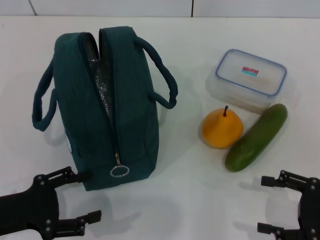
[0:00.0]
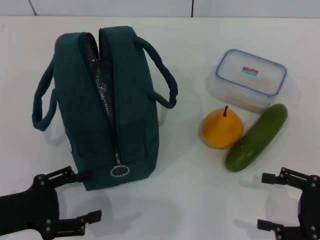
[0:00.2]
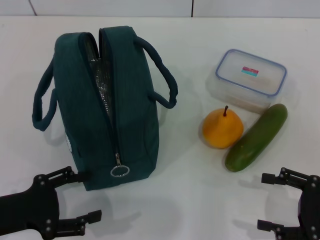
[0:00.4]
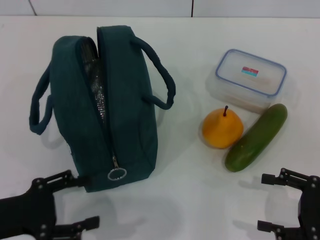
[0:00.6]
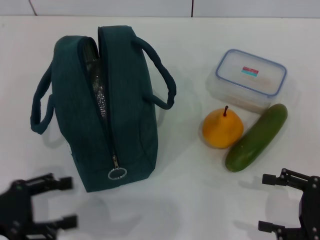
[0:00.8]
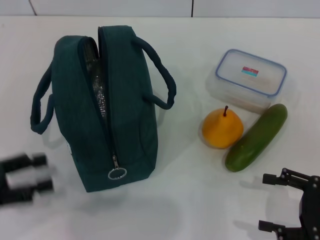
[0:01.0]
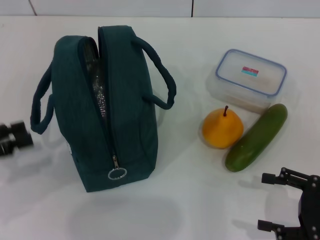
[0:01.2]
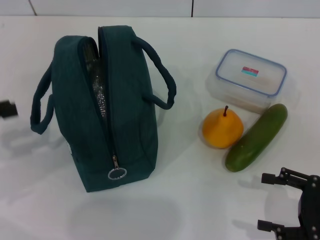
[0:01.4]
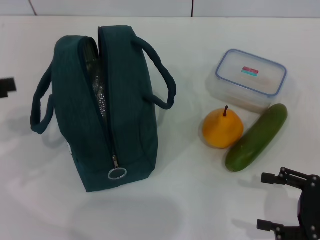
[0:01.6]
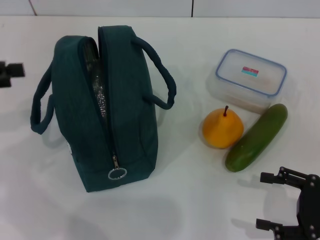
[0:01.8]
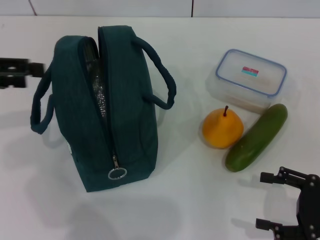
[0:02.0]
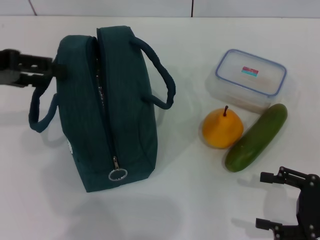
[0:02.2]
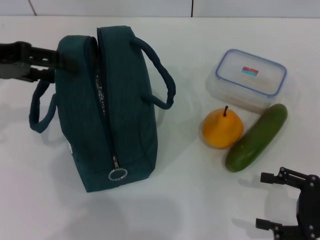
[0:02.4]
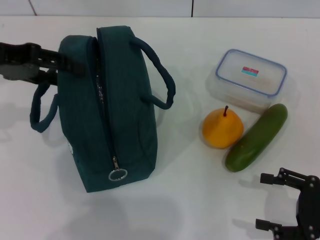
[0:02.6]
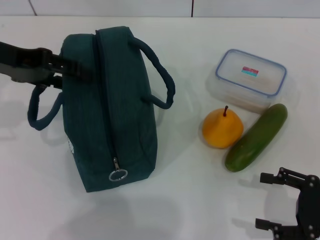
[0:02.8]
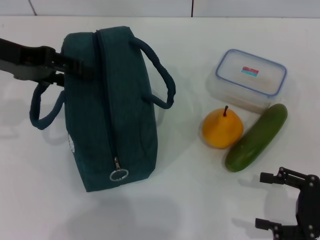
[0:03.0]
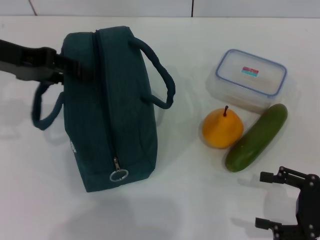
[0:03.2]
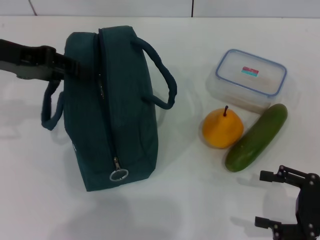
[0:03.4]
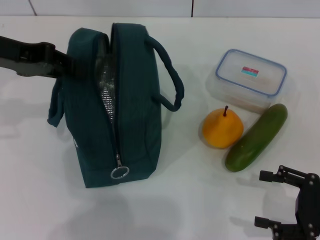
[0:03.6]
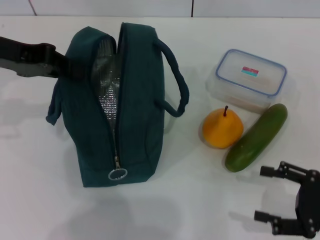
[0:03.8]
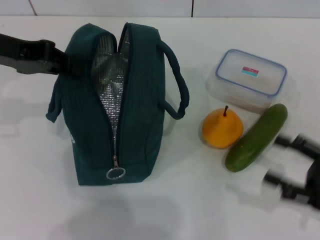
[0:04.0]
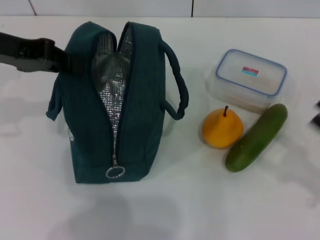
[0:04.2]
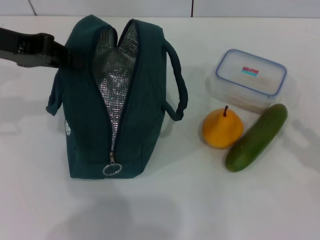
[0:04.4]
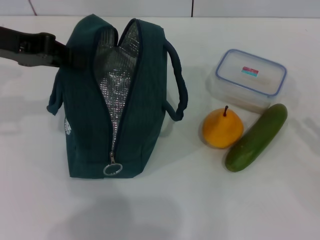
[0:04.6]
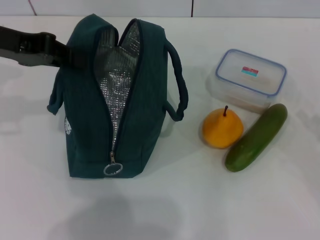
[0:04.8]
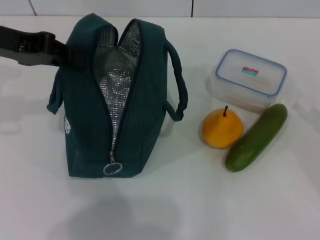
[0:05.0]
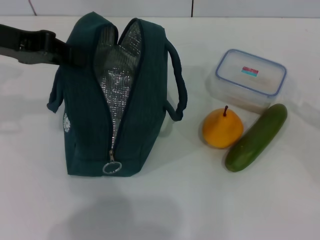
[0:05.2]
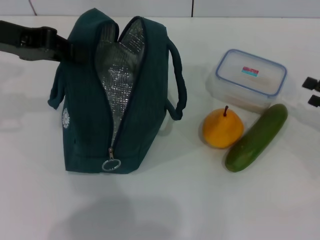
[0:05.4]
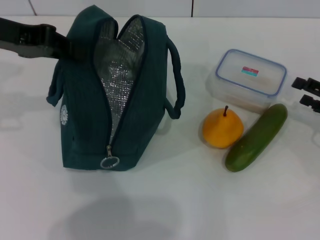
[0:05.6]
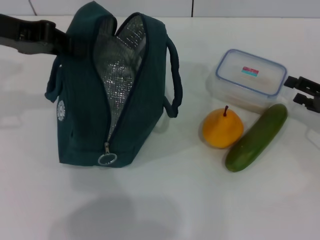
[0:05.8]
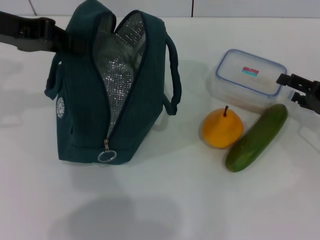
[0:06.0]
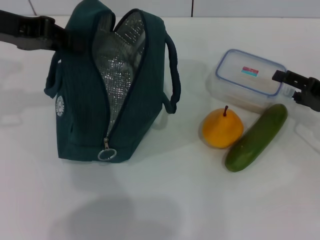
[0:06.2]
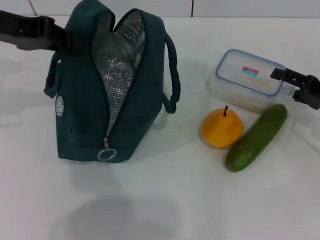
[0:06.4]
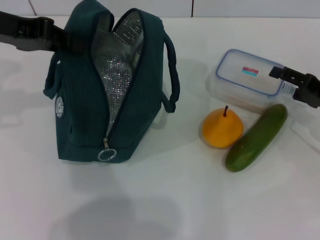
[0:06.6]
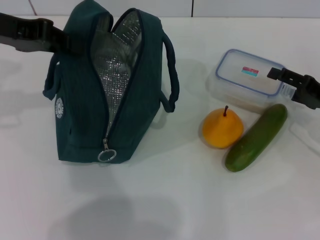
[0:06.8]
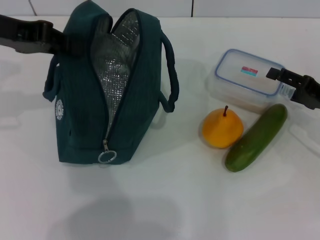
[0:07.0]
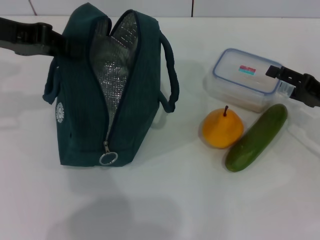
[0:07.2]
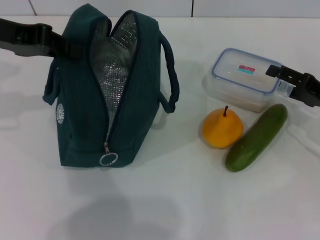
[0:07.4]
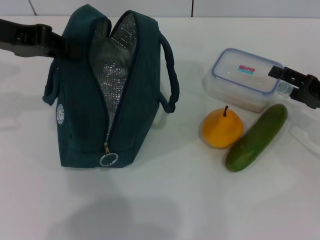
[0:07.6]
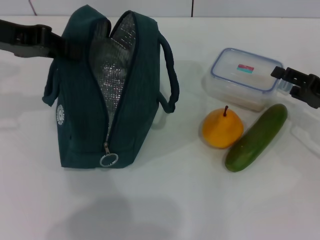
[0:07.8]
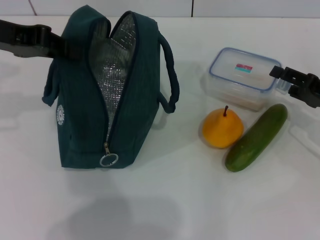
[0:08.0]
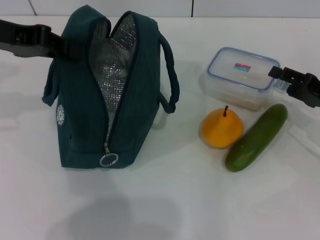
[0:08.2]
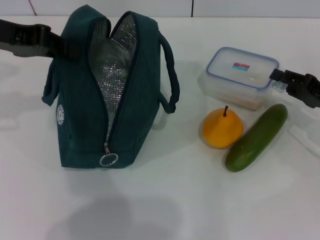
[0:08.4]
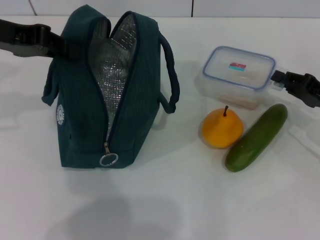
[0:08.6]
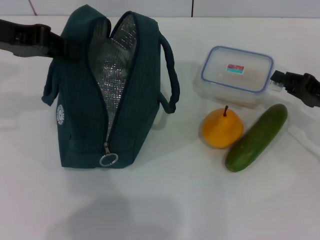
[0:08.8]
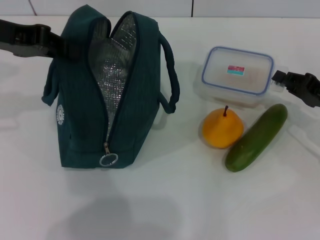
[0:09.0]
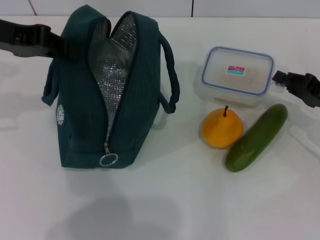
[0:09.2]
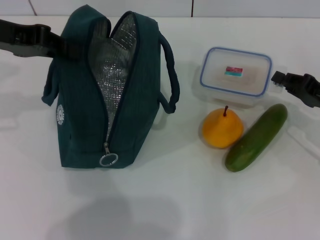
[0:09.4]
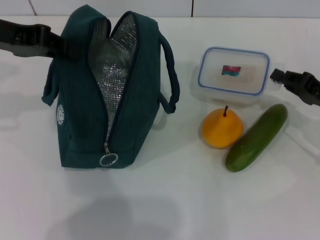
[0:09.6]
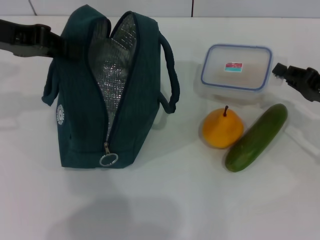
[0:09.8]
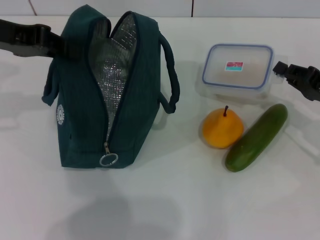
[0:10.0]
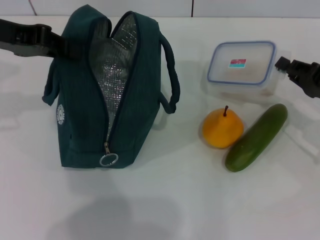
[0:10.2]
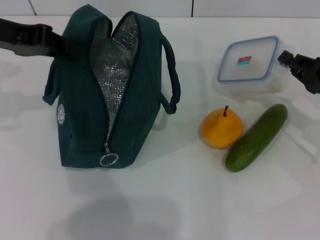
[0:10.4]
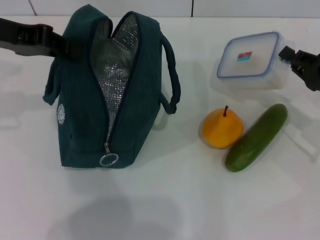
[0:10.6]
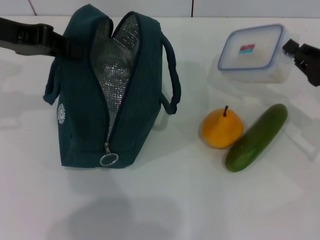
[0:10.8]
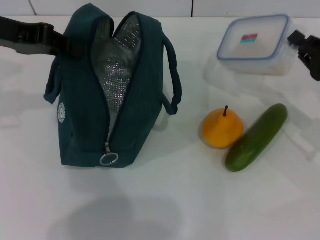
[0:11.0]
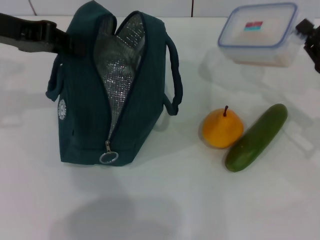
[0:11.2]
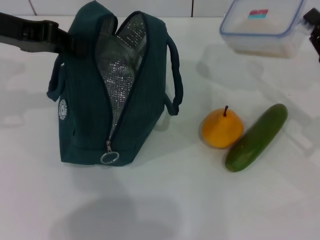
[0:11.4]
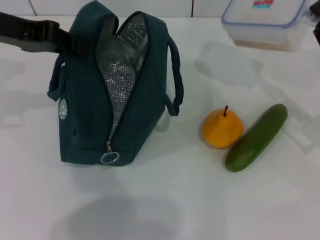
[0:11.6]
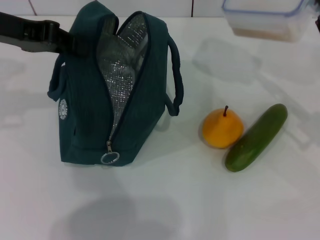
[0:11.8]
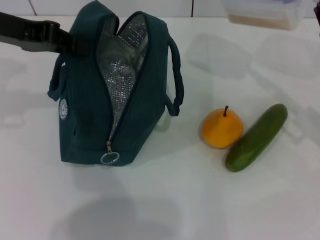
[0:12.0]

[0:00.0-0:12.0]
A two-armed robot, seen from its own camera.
Step, 0:00.0 to 0:03.6: Hold the lunch bag with your left hand.
Step, 0:03.8 to 0:09.0: Pick up the lunch box with your right hand.
0:00.0 to 0:01.6: The left gripper goes approximately 15 cm upward, to the left and forward.
0:01.6 to 0:03.0: The left gripper is displaced to the right, forward and upward by some 15 cm.
0:03.0 to 0:04.4: The left gripper closes up.
0:04.4 to 0:06.0: The right gripper is displaced forward by about 15 cm.
0:06.0 to 0:07.6: The grippers make only small movements.
0:07.6 to 0:09.0: The right gripper closes.
0:09.0 to 0:10.4: There are only small adjustments of the grippers.

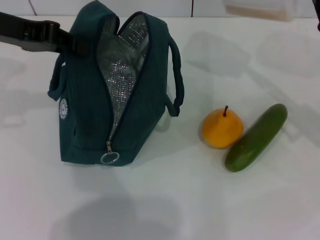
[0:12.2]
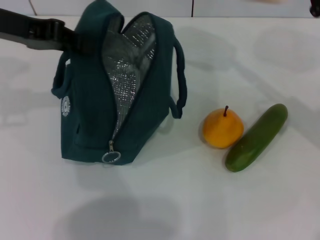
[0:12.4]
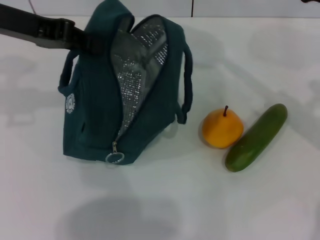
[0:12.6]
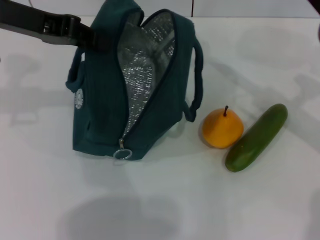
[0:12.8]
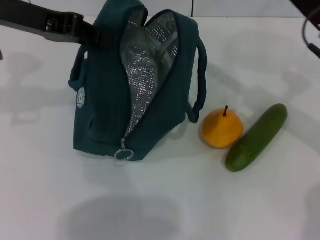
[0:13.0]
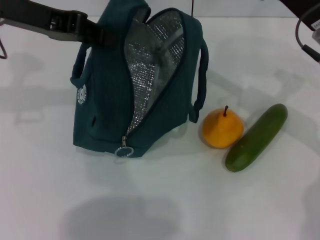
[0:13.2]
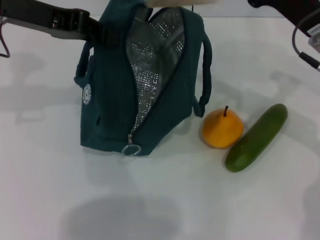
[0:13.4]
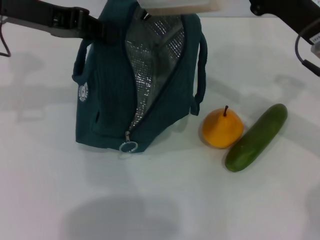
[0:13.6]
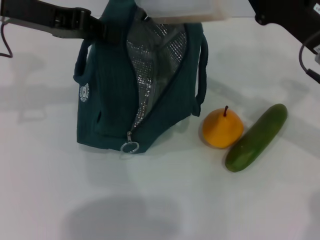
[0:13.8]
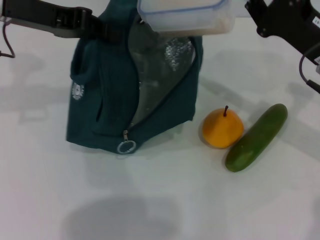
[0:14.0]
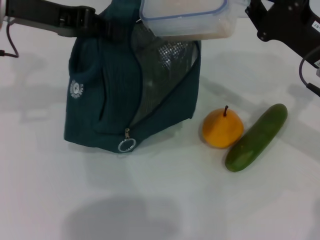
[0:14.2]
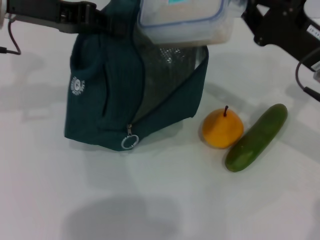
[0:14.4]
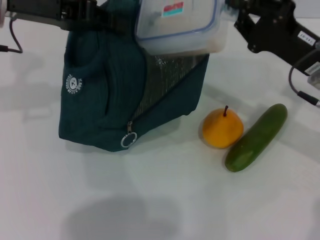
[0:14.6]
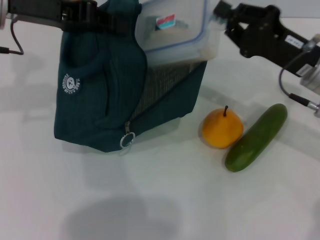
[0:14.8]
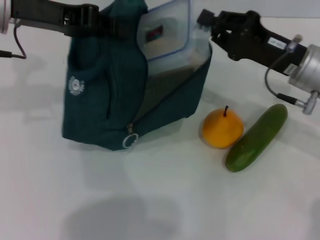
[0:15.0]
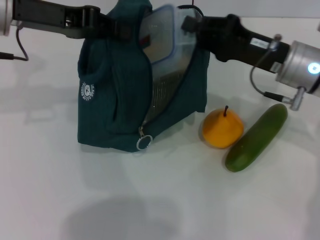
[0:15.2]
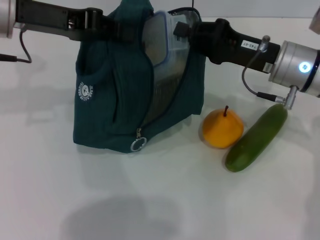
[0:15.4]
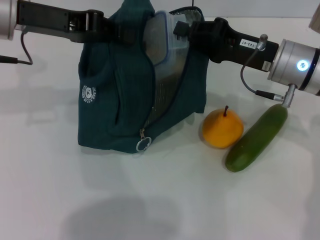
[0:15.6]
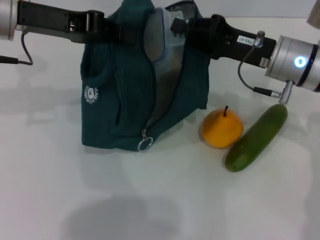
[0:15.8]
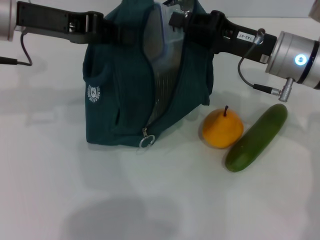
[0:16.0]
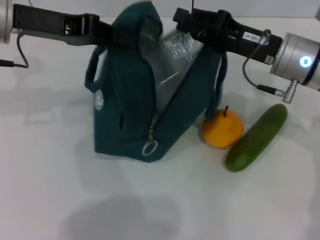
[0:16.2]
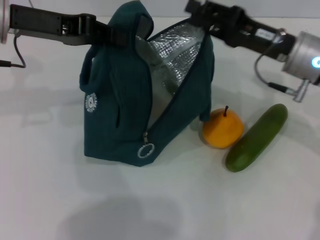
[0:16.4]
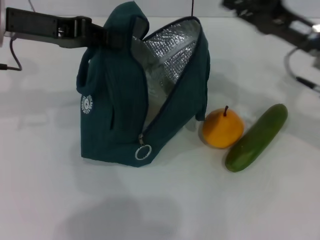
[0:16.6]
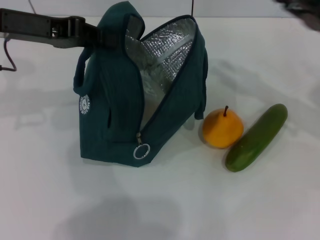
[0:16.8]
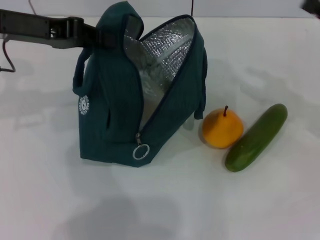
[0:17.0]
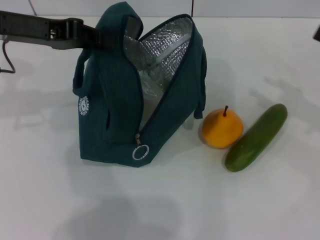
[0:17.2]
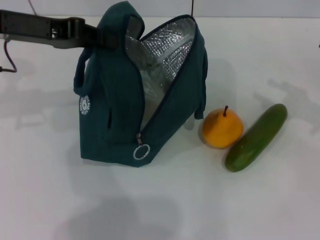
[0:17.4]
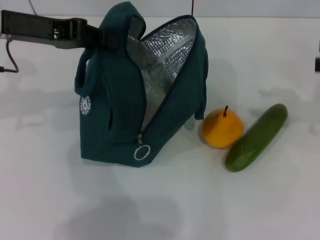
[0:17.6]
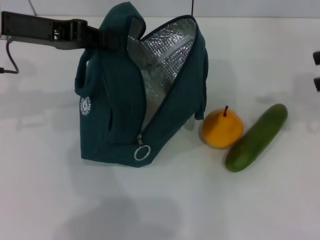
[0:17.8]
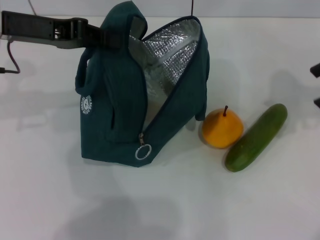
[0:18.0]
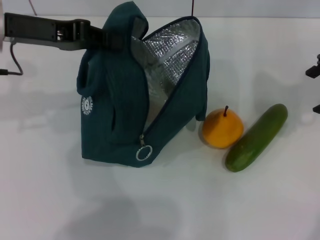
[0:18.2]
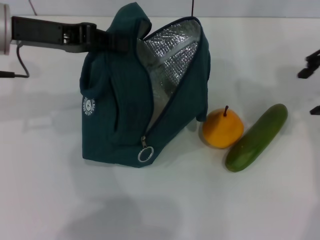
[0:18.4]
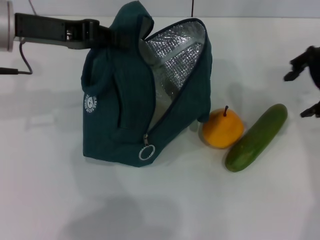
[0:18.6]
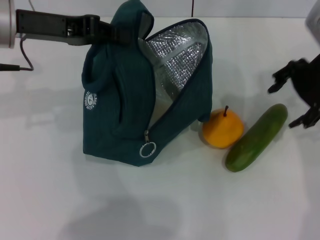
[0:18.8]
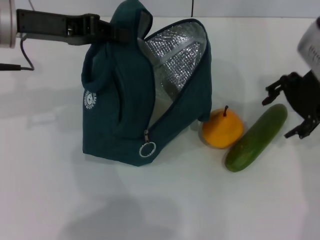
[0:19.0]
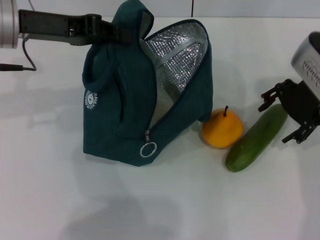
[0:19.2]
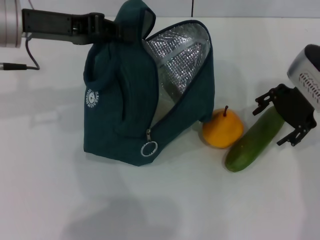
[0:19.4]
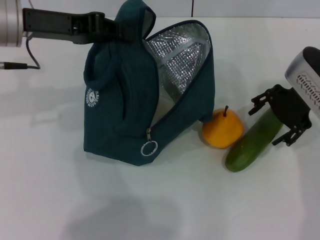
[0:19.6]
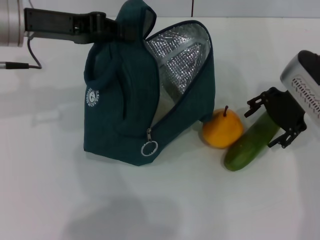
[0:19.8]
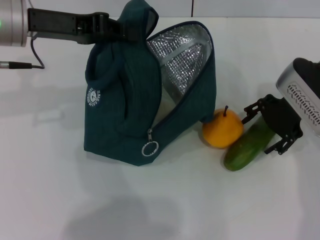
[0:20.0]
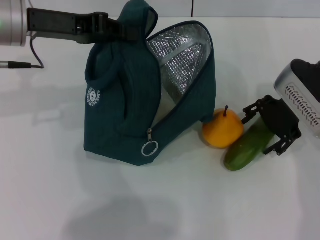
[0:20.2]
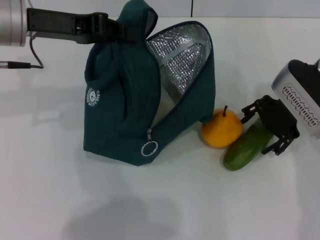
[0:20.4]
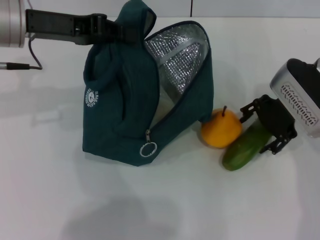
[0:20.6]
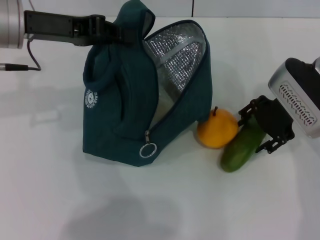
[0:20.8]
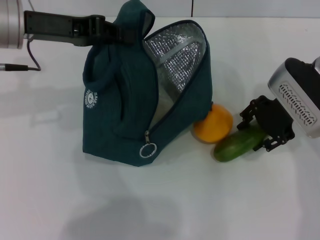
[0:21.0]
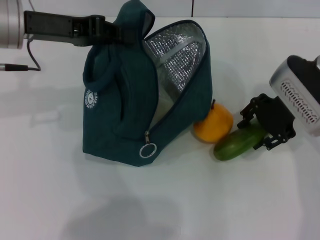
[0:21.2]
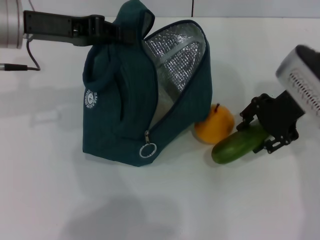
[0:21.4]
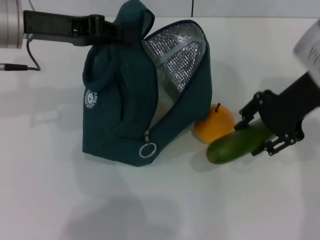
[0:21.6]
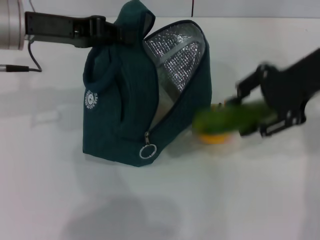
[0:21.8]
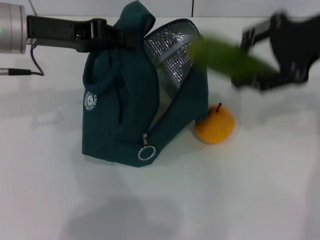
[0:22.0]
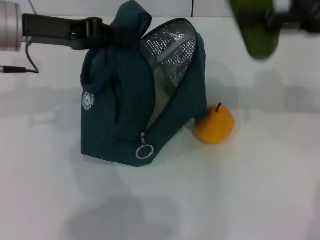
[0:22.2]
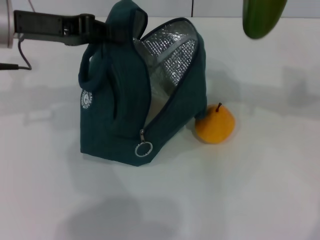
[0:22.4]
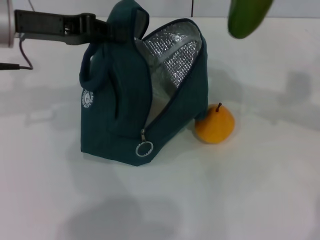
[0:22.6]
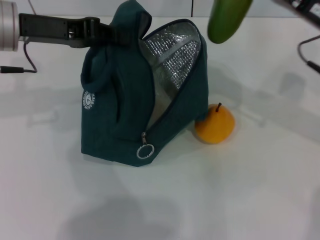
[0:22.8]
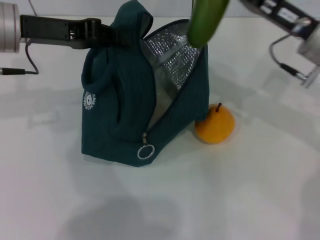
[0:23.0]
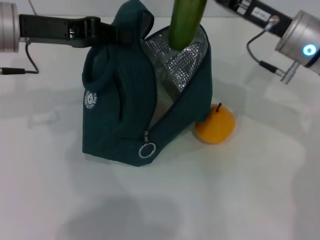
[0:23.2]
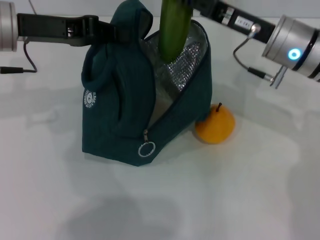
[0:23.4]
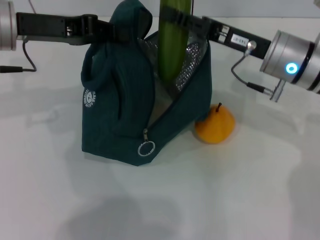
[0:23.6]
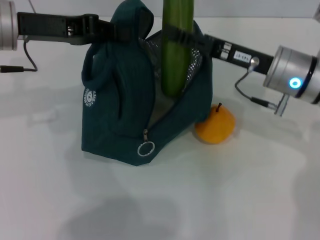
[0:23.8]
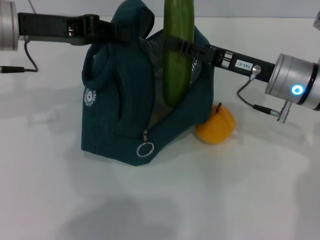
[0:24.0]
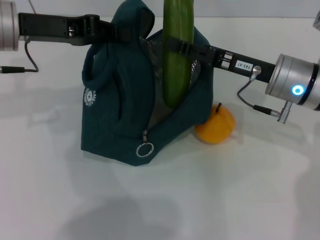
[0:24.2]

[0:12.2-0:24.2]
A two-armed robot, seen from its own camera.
Step, 0:12.2 to 0:16.4: Place the lunch box into the lunch bag with your right hand.
Step, 0:16.6 to 0:21.0: Pick up the cucumber with your right hand.
0:12.2 to 0:13.8: The right gripper heads to the left, covering approximately 5 cm.
0:15.2 to 0:16.6: The right gripper opens up.
0:16.6 to 0:18.2: The right gripper travels upward and to the right by some 15 cm.
0:18.2 to 0:19.8: The right gripper shifts some 15 cm downward and to the left.
0:19.8 to 0:21.2: The grippers make only small movements.
0:21.2 to 0:22.6: The right gripper shifts approximately 5 cm to the right.
0:22.6 to 0:24.2: The right gripper travels to the left and downward by some 10 cm.
